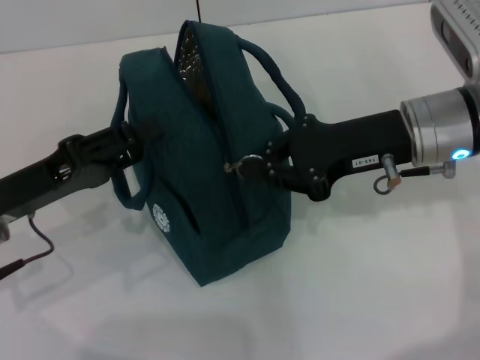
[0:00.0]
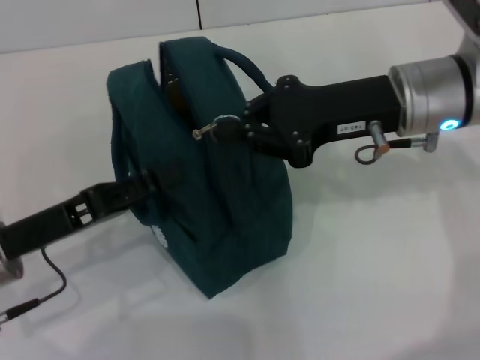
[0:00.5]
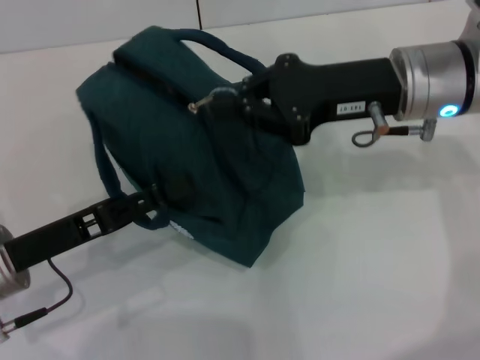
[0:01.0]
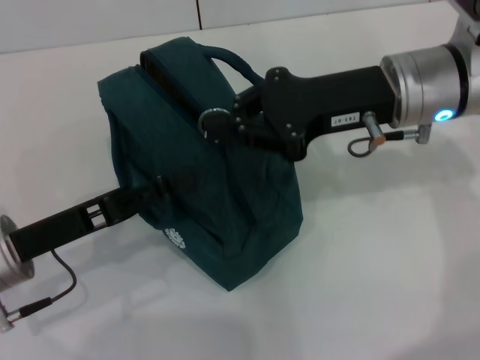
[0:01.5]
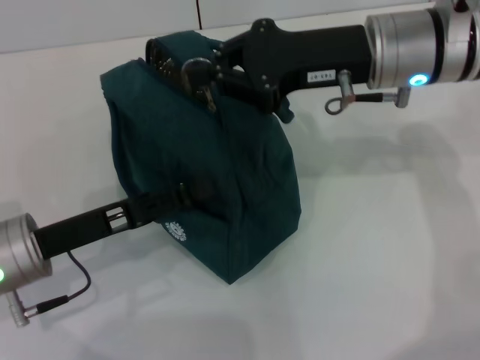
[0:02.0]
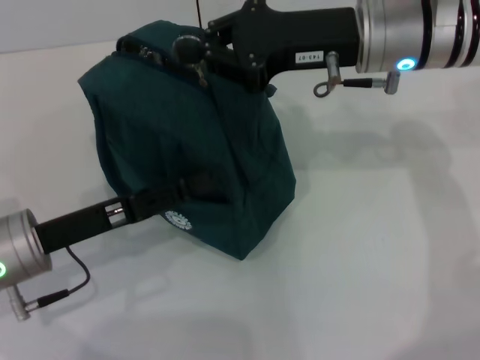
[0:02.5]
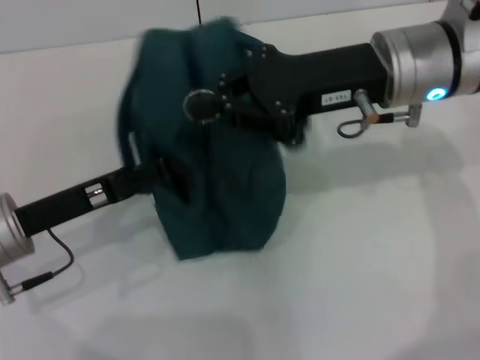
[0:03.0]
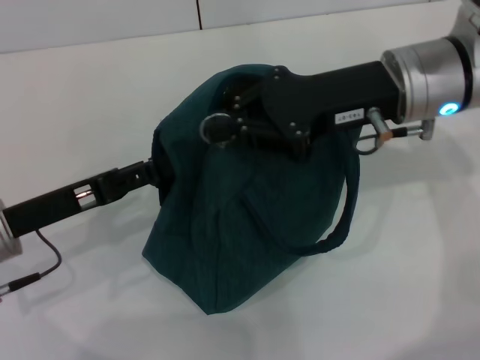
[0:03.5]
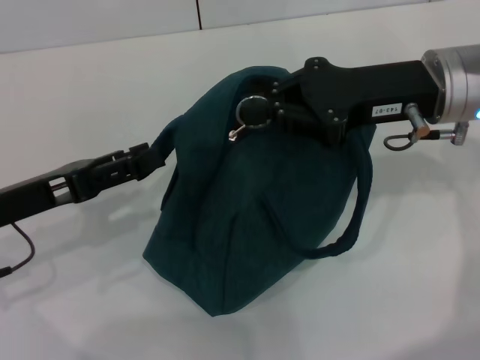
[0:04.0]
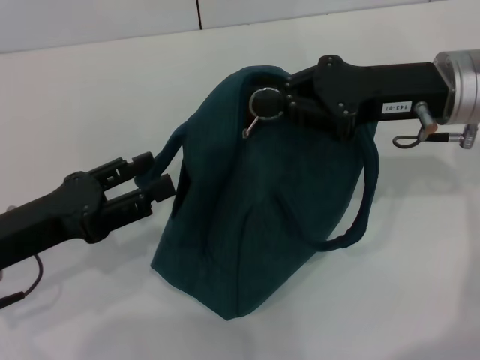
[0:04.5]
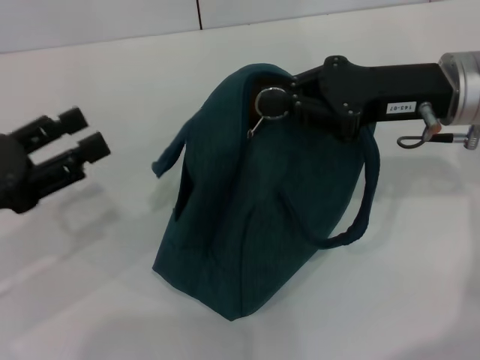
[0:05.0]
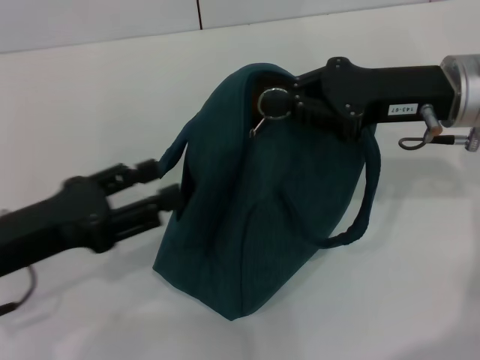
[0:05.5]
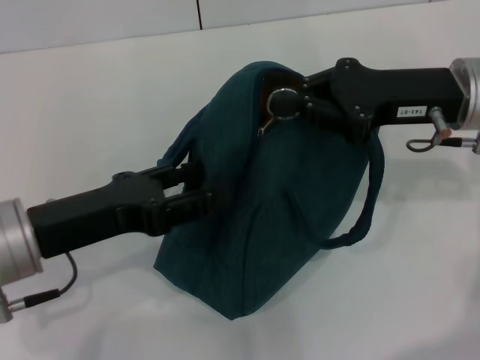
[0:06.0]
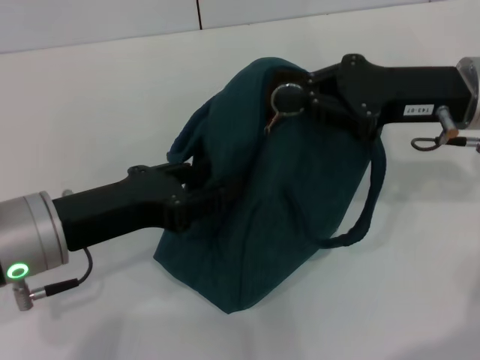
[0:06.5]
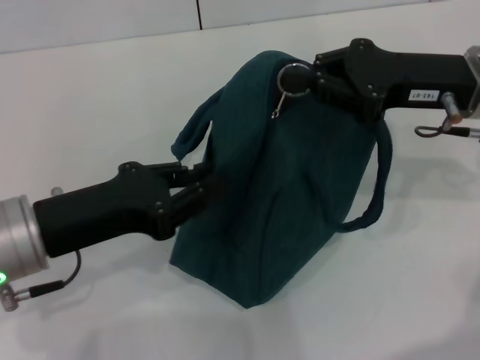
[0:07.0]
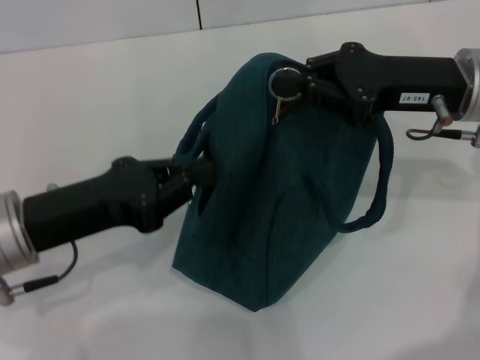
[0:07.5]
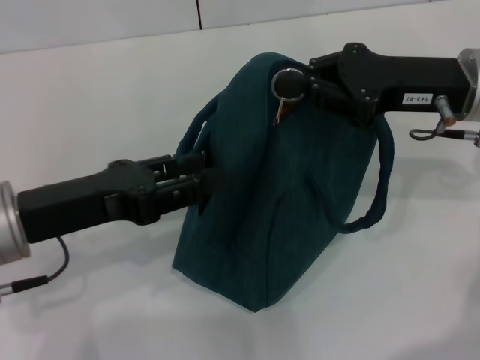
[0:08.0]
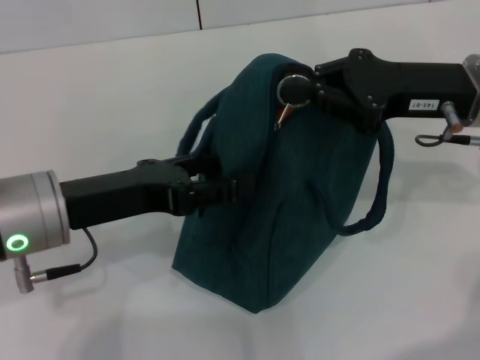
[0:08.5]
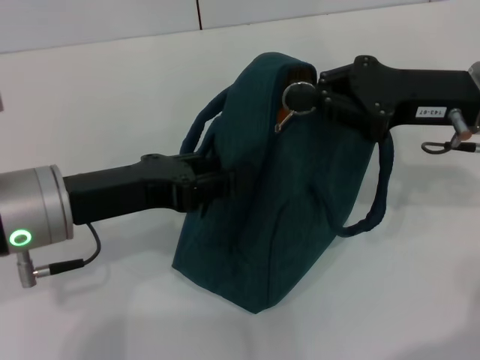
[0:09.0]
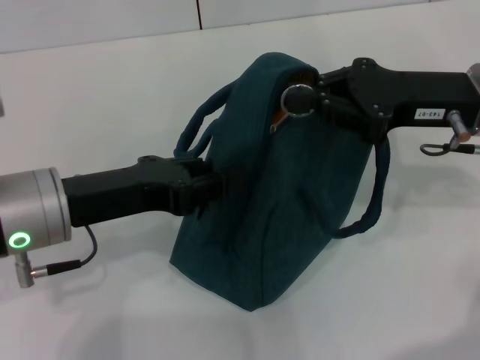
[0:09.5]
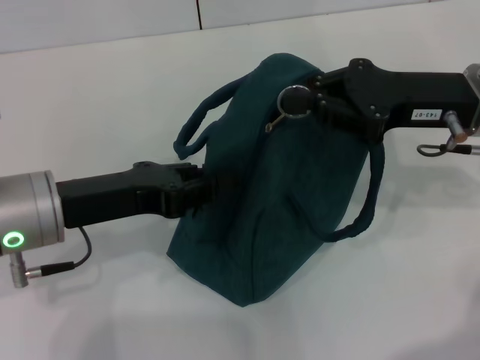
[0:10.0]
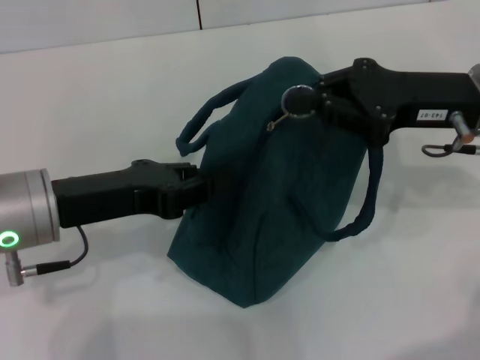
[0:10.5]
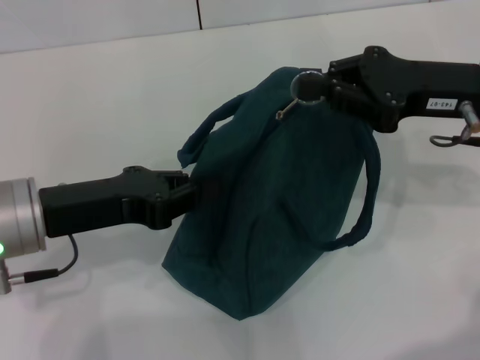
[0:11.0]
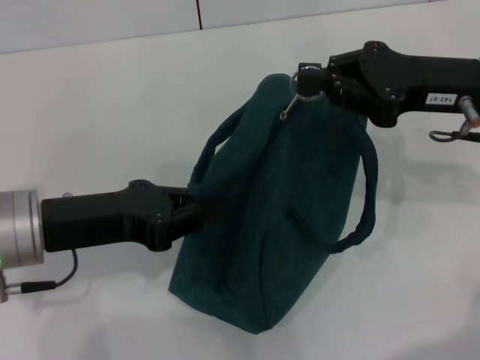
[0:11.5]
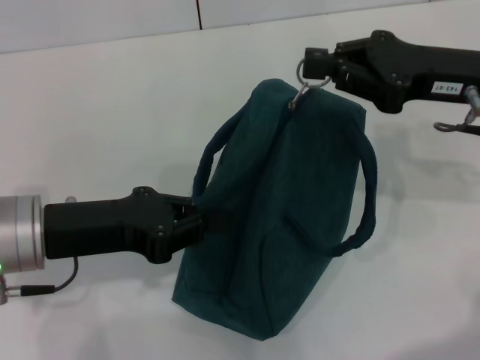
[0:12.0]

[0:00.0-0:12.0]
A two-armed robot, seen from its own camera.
Step, 0:00.0 to 0:07.5: Hold the lunch bag with your left hand.
0:00.0 to 0:02.0: The left gripper opens its fingers, while the right gripper moves about 5 cm.
0:02.0 to 0:04.0: The right gripper shifts by some 5 cm, while the left gripper changes place by approximately 5 cm.
0:04.0 to 0:06.0: The left gripper heads to the right, covering some 5 cm.
0:06.0 to 0:08.0: The left gripper closes, then opens again.
0:08.0 to 0:10.0: The left gripper opens, then closes once more.

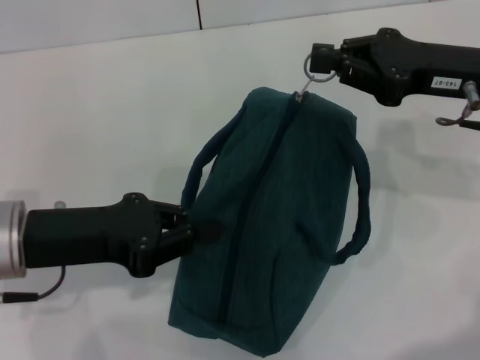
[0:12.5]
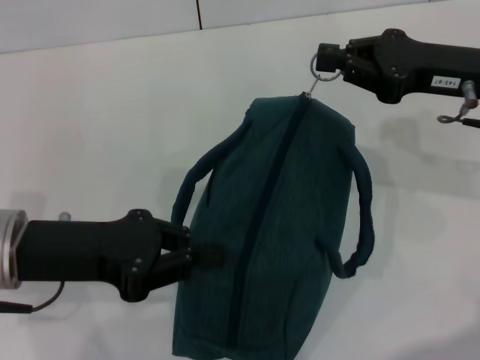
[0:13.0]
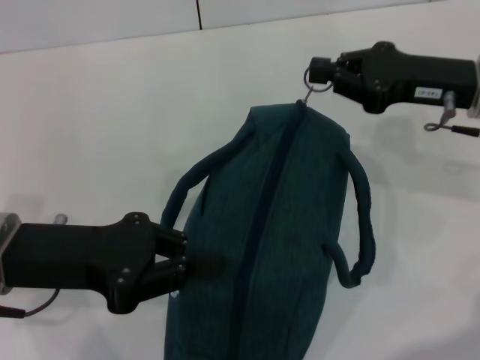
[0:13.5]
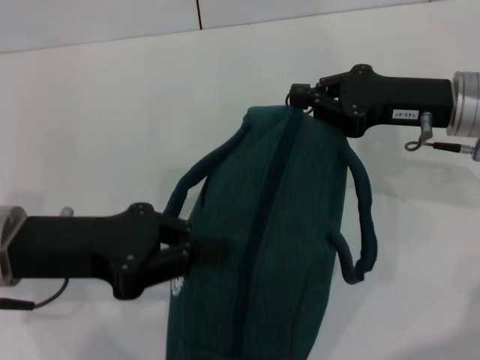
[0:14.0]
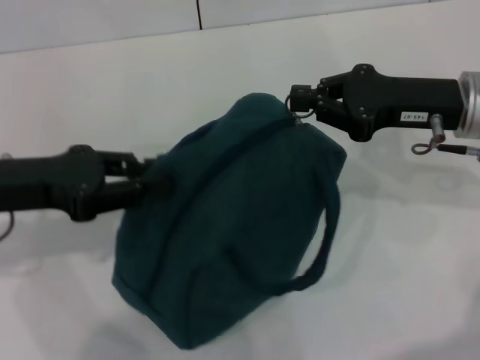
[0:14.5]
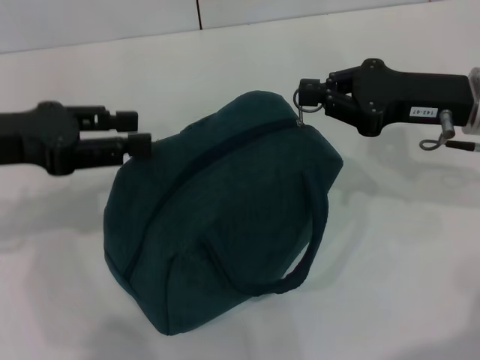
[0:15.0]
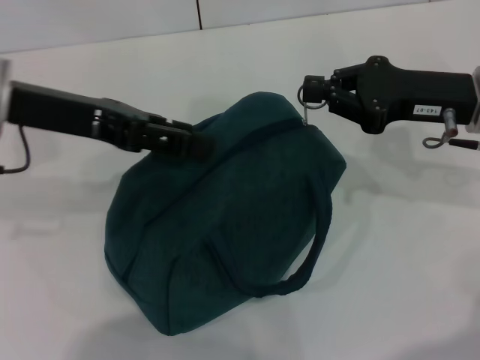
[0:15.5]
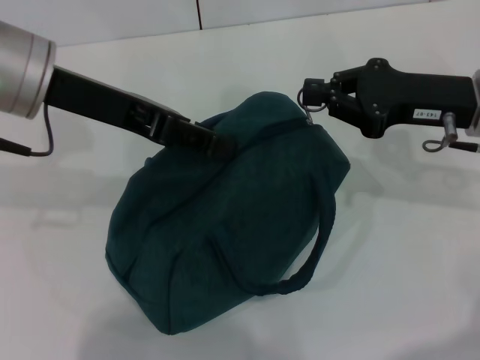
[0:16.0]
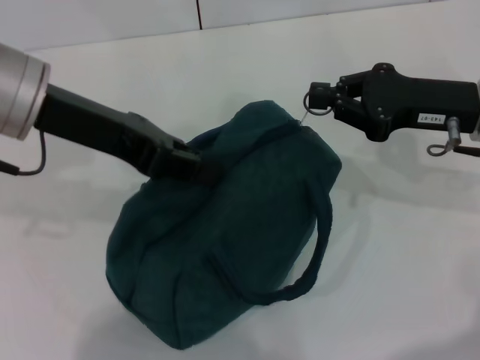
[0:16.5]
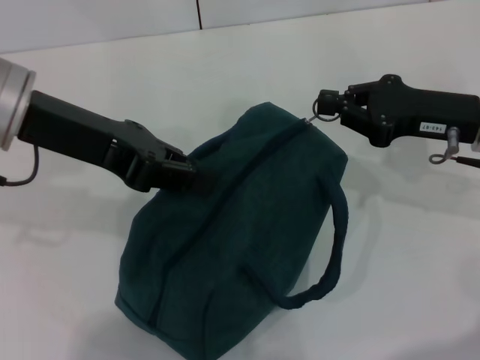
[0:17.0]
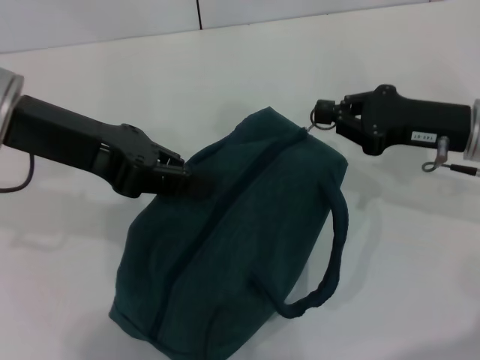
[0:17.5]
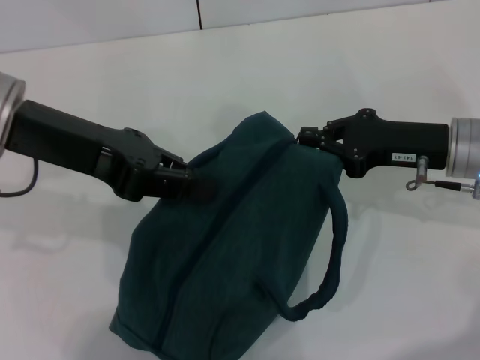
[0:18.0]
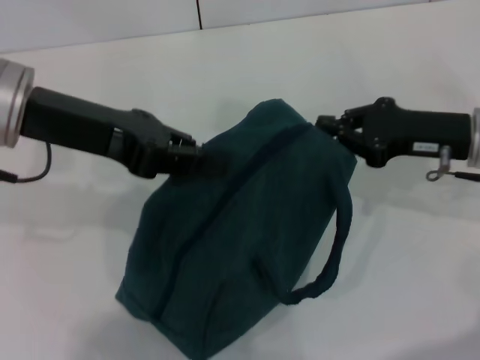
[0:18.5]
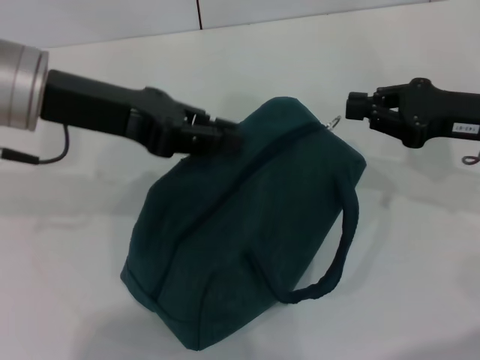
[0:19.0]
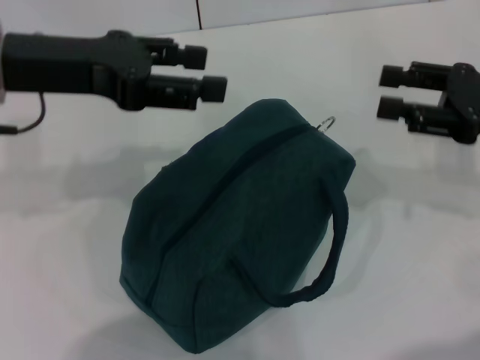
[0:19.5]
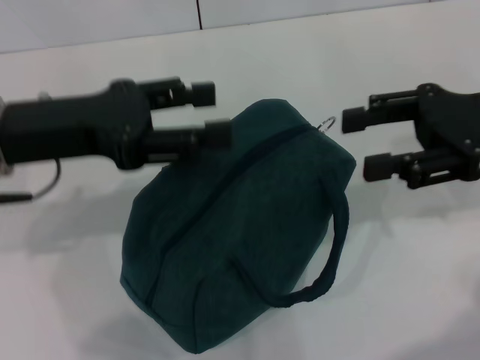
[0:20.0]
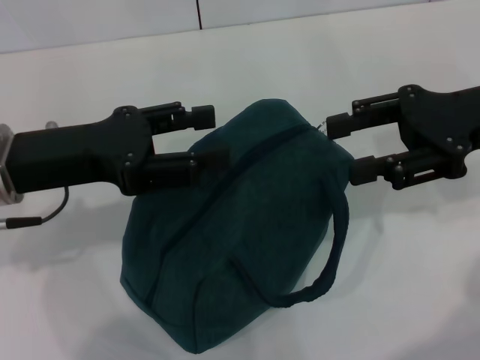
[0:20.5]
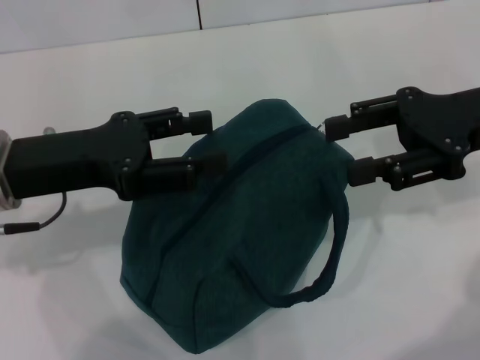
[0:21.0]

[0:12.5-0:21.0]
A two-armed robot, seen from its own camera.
Step, 0:12.5 to 0:18.5: Zip up the lunch bag with your right hand.
0:12.5 to 0:14.5: The left gripper shifts by approximately 5 cm.
0:14.5 to 0:16.5: The left gripper travels to the right and upward by roughly 10 cm, and opens, then closes again.
0:16.5 to 0:19.0: The grippers make only small movements.
0:19.0 to 0:21.0: The left gripper shifts about 5 cm downward, and opens; the right gripper shifts roughly 5 cm upward, and opens its fingers.

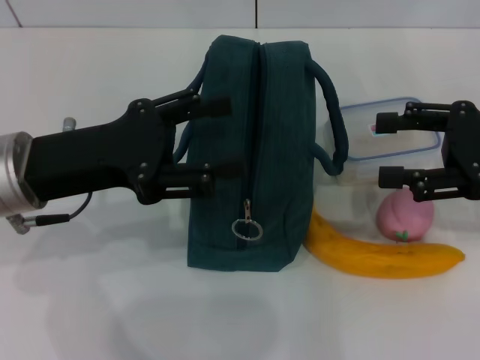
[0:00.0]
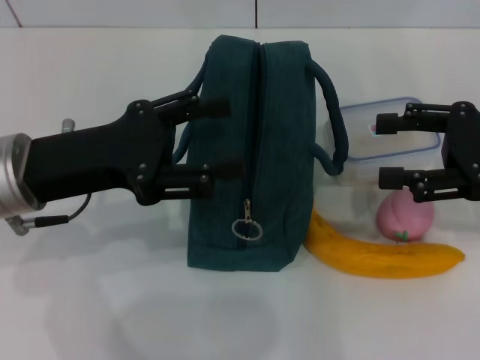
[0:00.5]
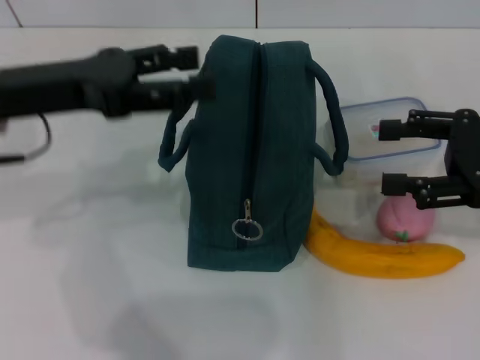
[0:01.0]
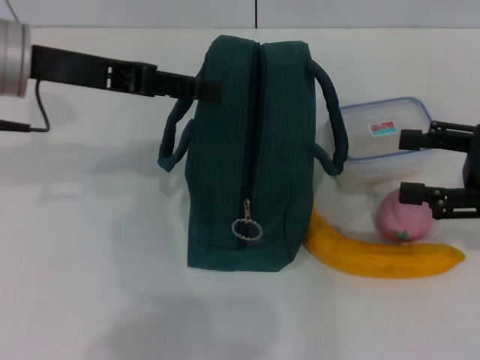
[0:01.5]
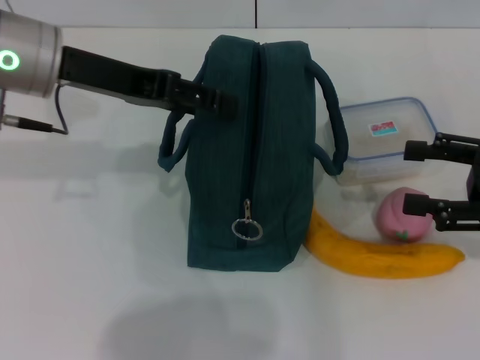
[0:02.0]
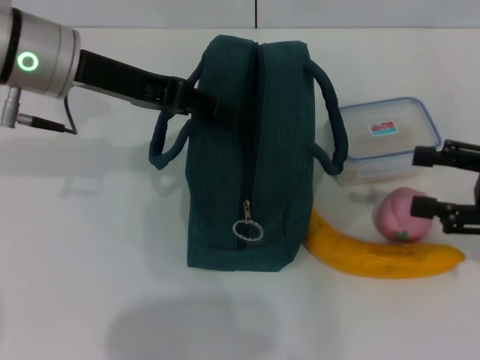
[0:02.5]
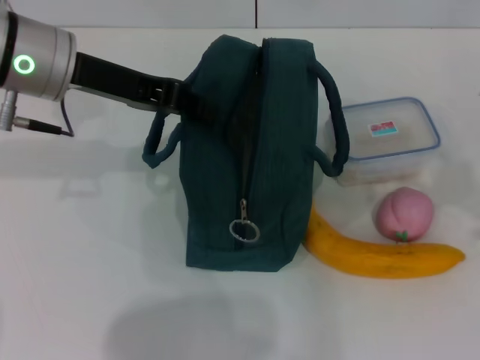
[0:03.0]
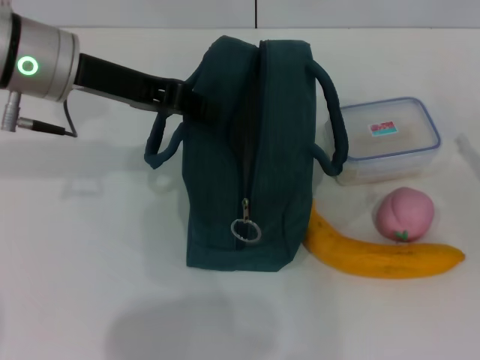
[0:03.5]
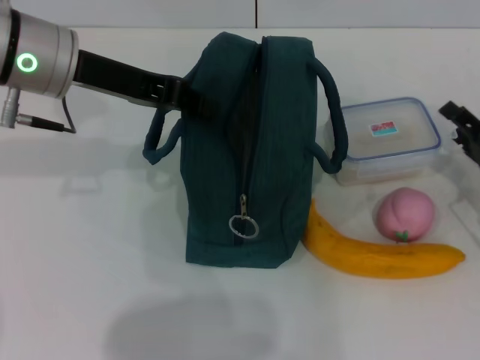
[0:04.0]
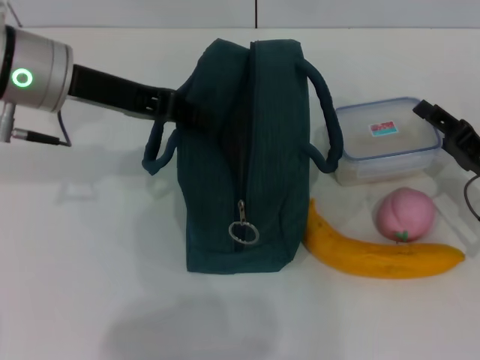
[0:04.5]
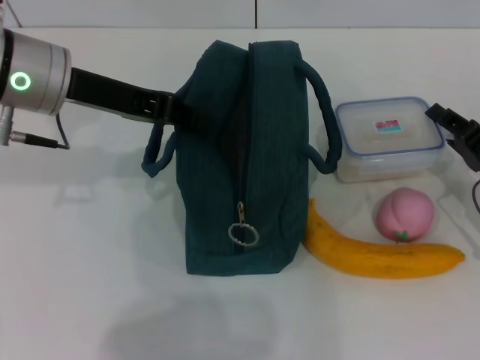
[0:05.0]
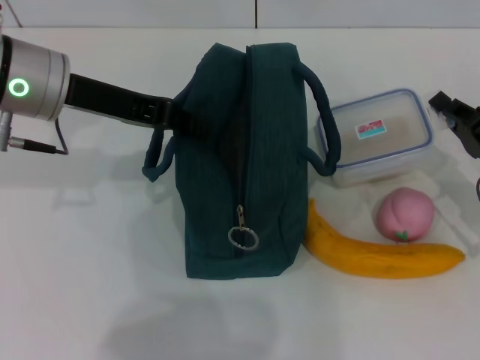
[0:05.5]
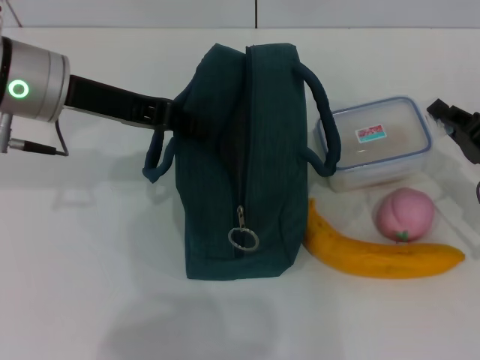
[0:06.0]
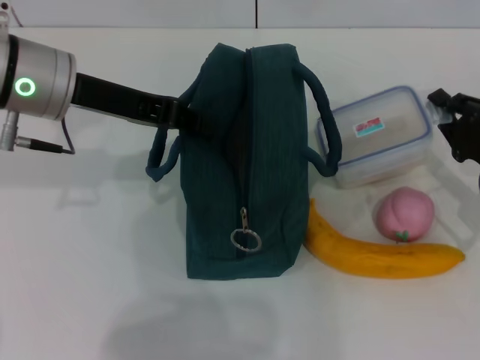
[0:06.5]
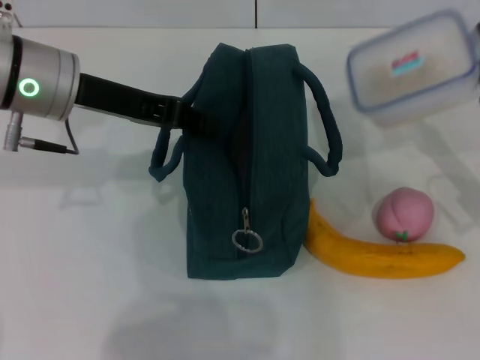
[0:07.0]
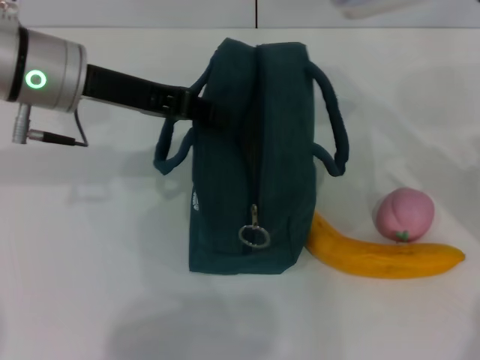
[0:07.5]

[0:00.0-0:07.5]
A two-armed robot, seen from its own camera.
Step, 0:00.0 to 0:03.0: Hold the lunch bag with your left hand.
Step, 0:03.5 to 0:06.5: Pick up the lunch box with your right hand.
0:00.0 to 0:02.0: The left gripper heads forward and upward, covering roughly 10 cm.
0:02.0 to 0:04.0: The left gripper closes up. The right gripper travels downward by roughly 10 cm.
0:04.0 to 0:05.5: The right gripper closes up.
0:05.5 to 0:07.5: The right gripper moves upward, roughly 10 cm.
